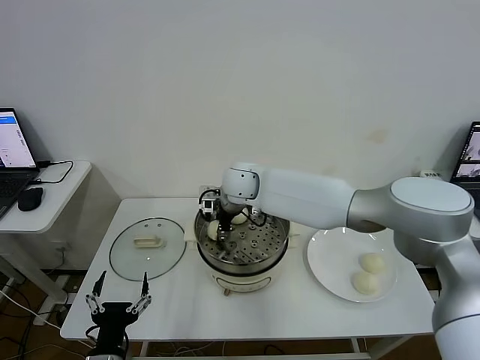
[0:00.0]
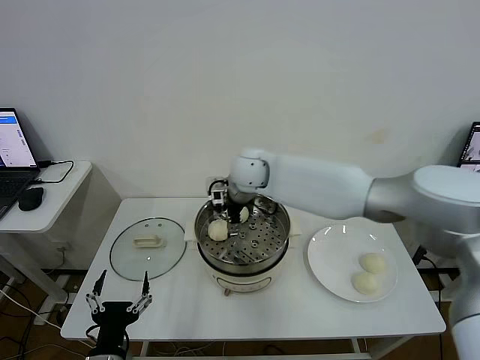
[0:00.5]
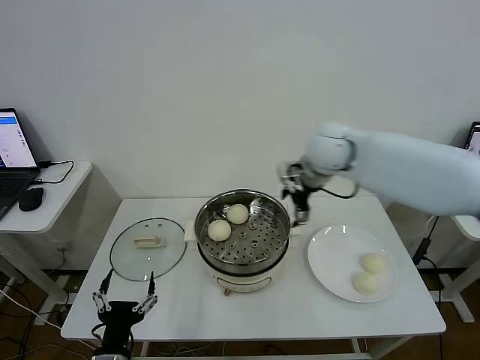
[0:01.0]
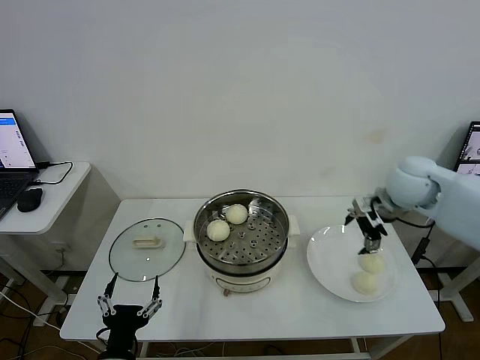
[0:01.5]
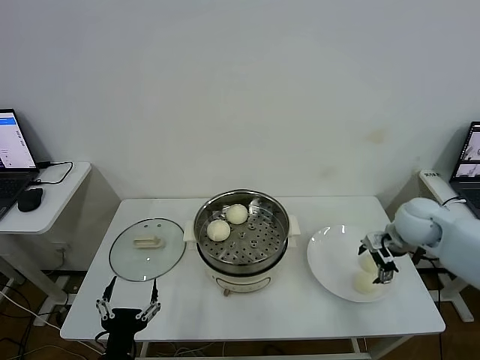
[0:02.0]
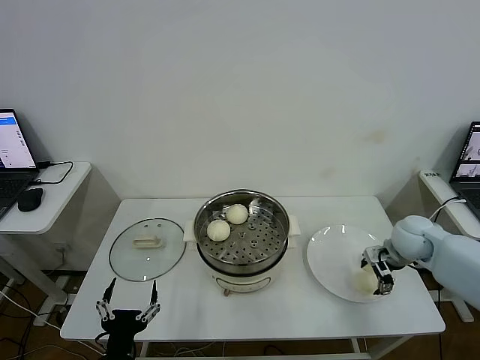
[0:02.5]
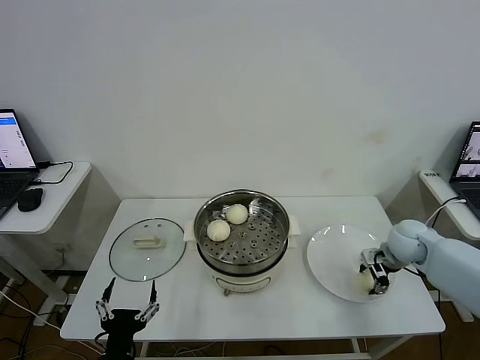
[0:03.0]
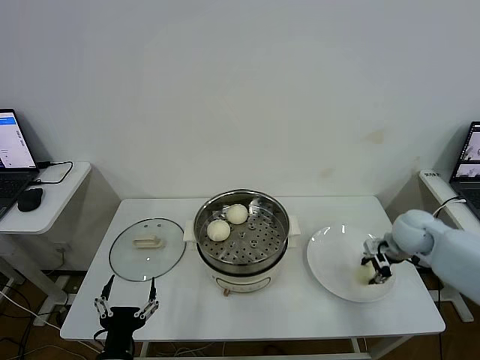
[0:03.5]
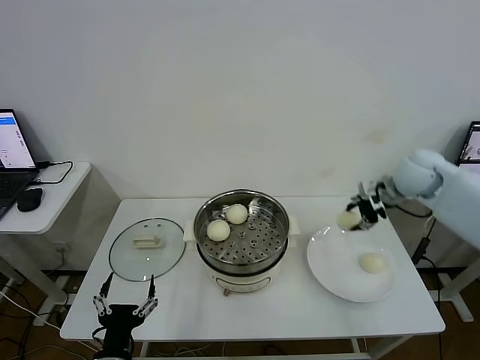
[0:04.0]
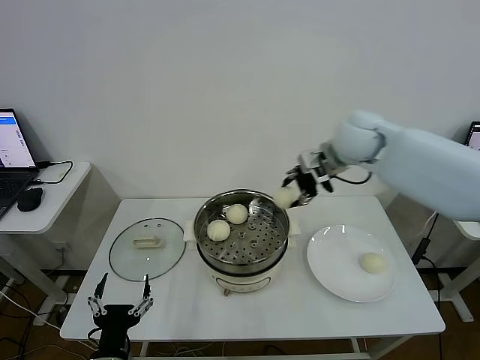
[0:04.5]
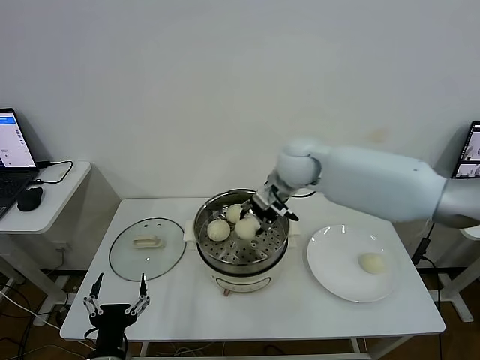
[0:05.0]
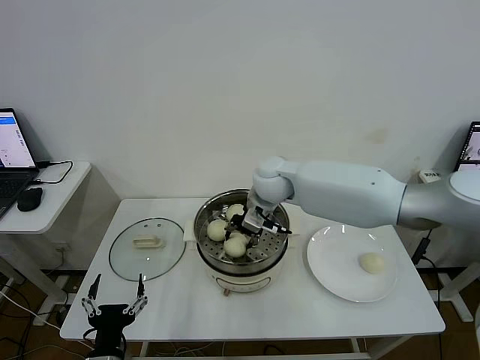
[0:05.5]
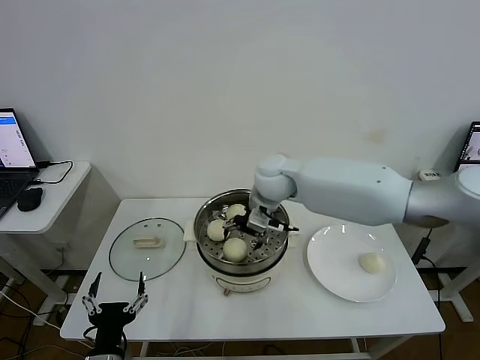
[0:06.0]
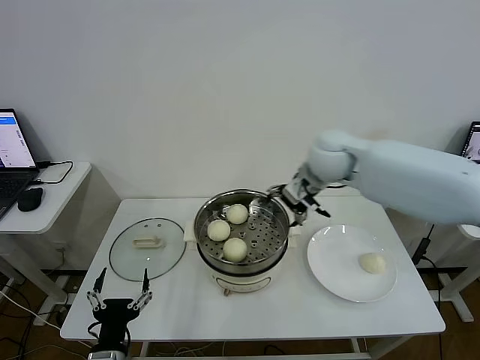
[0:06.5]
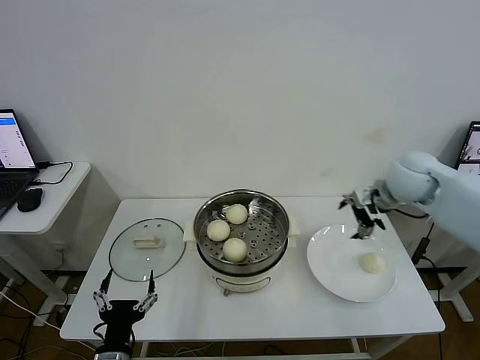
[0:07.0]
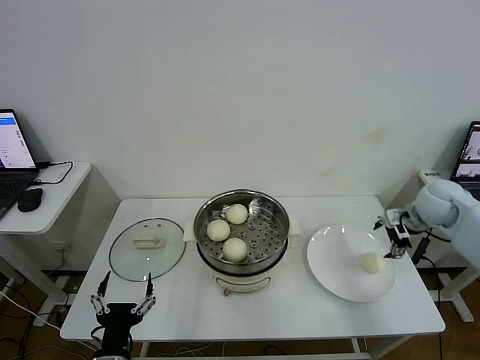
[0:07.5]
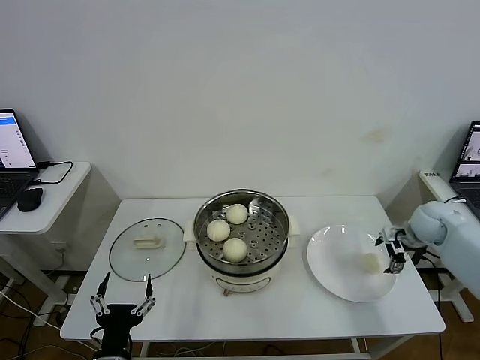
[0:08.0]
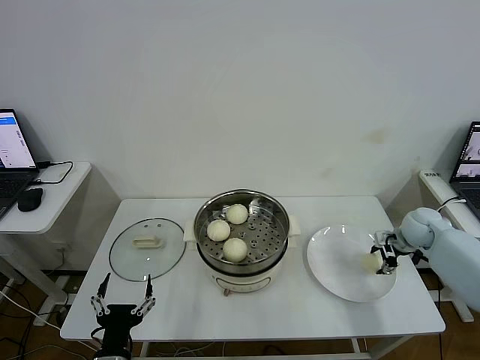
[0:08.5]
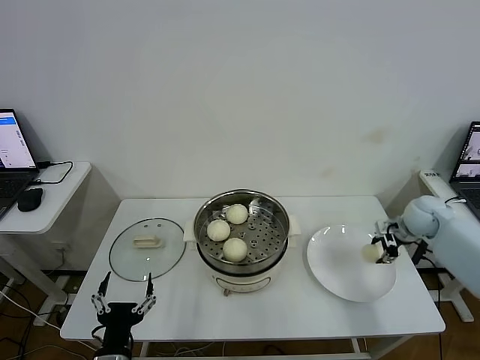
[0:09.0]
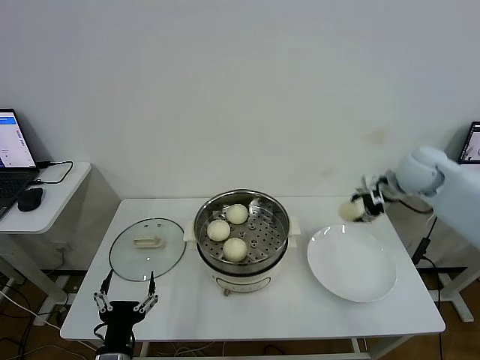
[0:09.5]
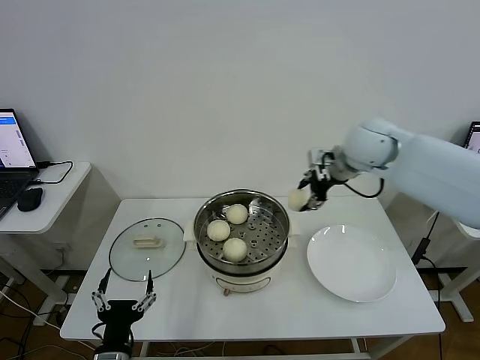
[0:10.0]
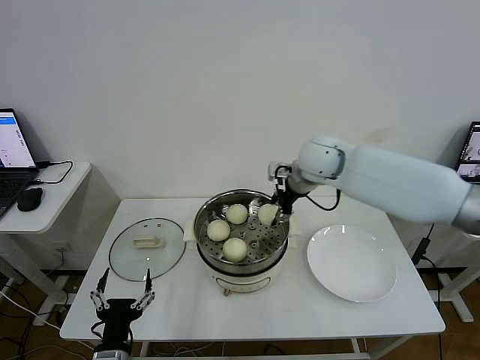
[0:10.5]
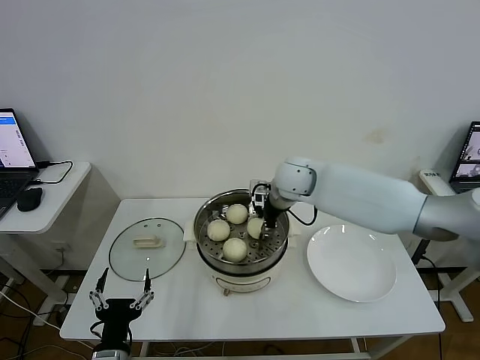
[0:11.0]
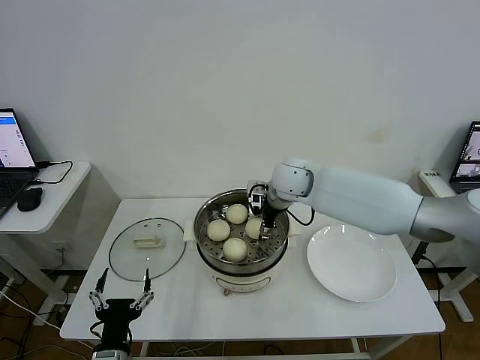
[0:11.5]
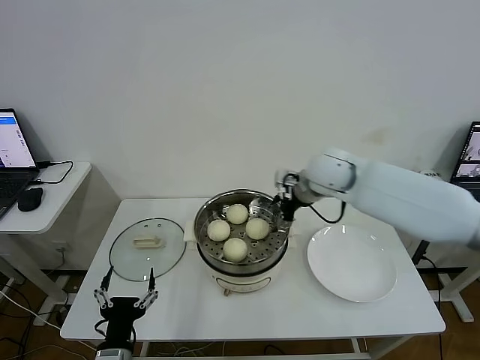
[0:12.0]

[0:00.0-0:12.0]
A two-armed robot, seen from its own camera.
Step, 1.0 to 3.0 s: Grasp the baozi in the plate with right gripper.
Step, 3.5 to 6.0 s: Place the baozi on the steamer with right gripper.
Step, 6.5 to 8.5 s: Grasp the baozi in the plate with right gripper.
Step, 9.0 to 11.5 s: Place the baozi on the steamer with right gripper.
0.0 to 2.0 s: The right gripper goes approximately 40 cm to the right, and opens.
2.0 to 4.0 s: The right gripper heads upward and forward, covering roughly 15 cm, and closes its fingers.
4.0 to 6.0 s: The right gripper moves to the left, approximately 25 cm, and opens.
6.0 to 8.0 s: The right gripper shifts roughly 40 cm to the right.
8.0 to 10.0 s: The right gripper moves to the left and upward, about 30 cm, and closes its fingers.
10.0 to 12.0 s: The right gripper moves downward, approximately 5 cm, and opens its fingers.

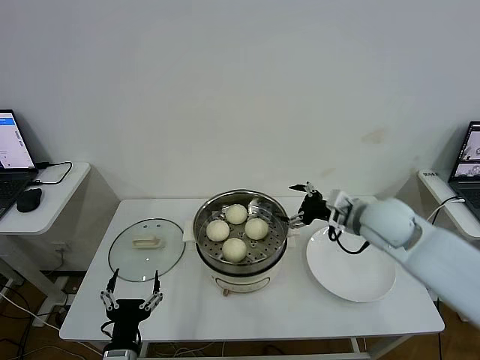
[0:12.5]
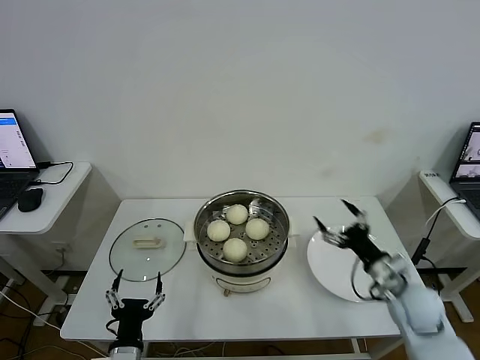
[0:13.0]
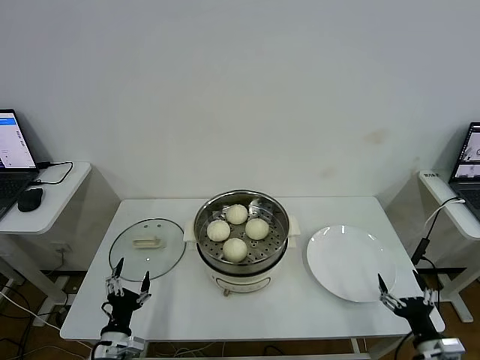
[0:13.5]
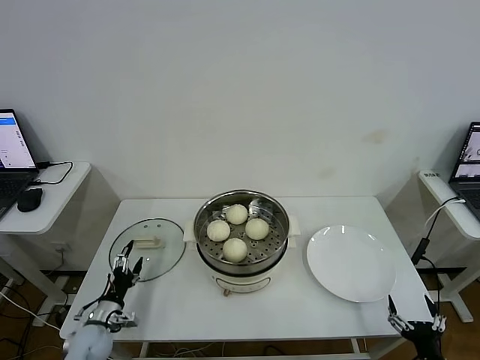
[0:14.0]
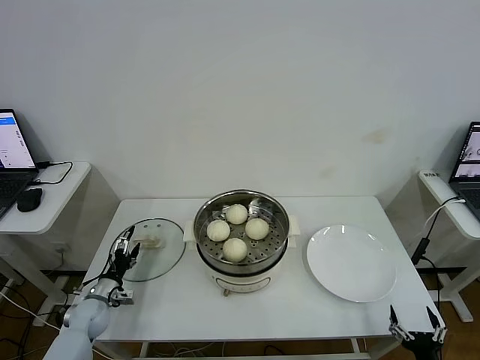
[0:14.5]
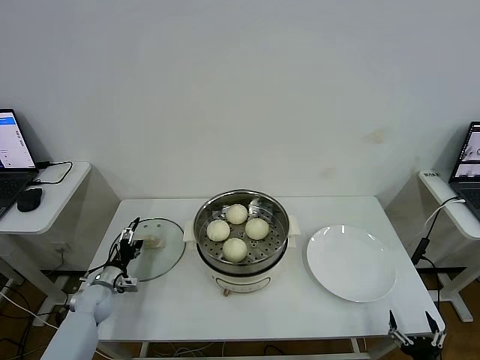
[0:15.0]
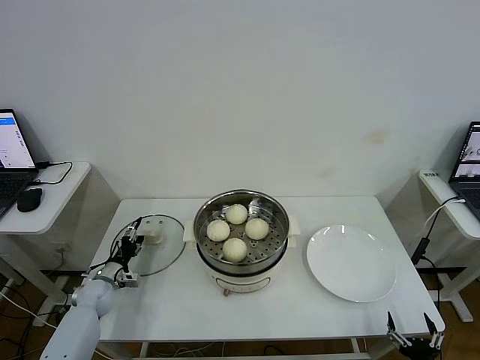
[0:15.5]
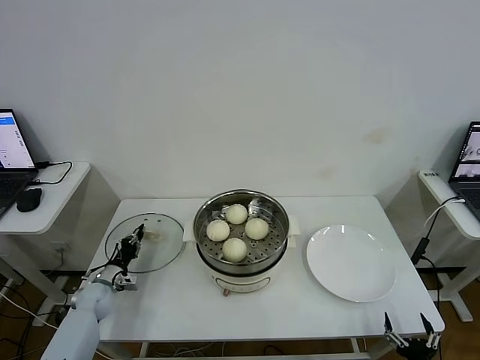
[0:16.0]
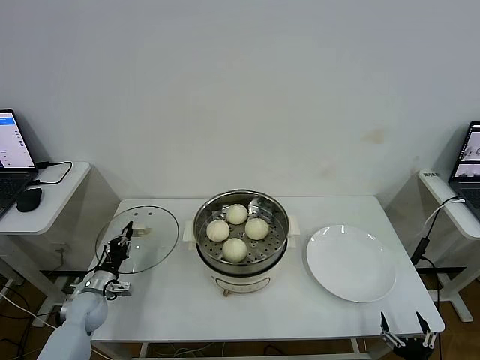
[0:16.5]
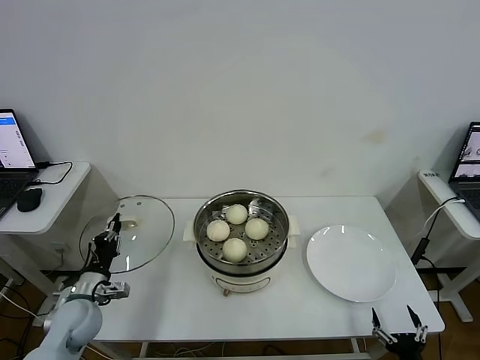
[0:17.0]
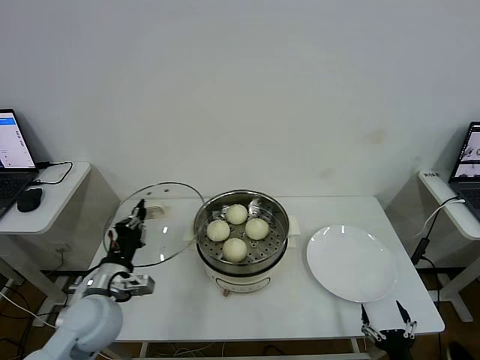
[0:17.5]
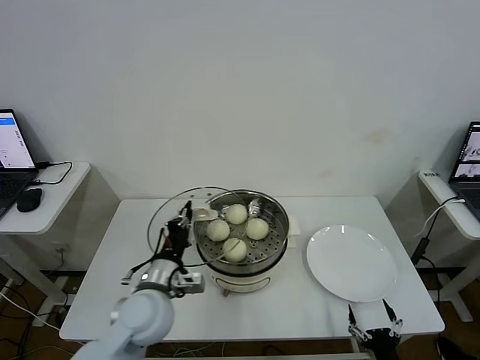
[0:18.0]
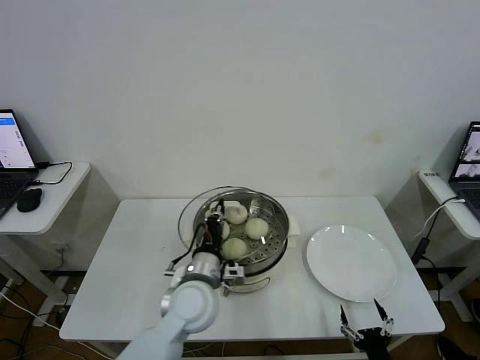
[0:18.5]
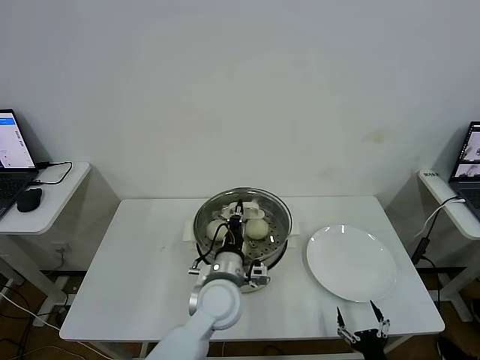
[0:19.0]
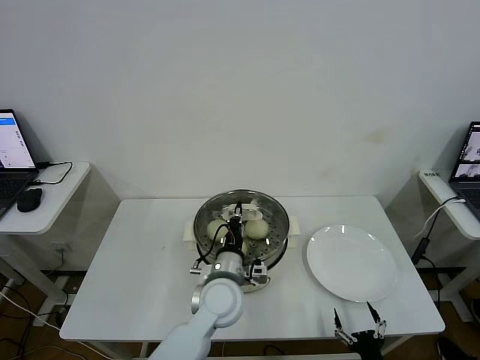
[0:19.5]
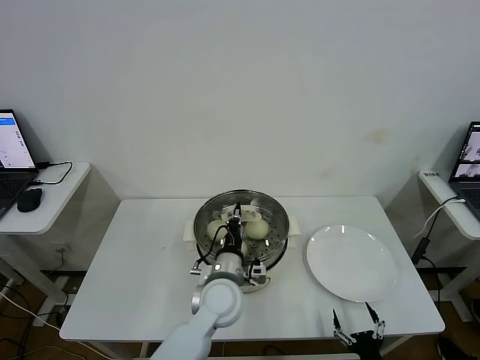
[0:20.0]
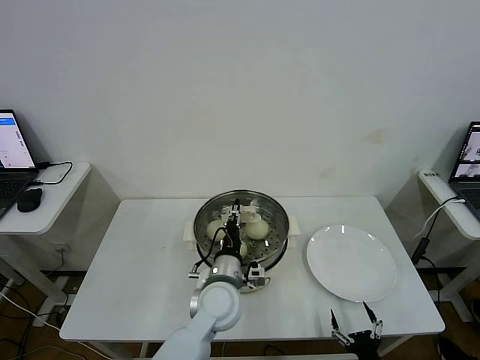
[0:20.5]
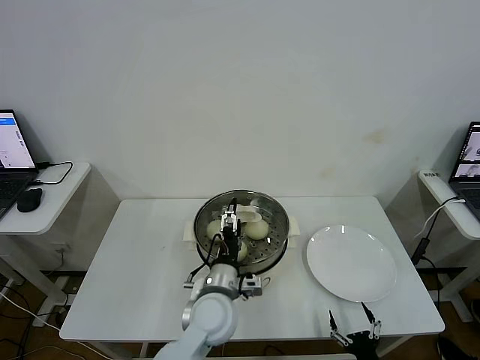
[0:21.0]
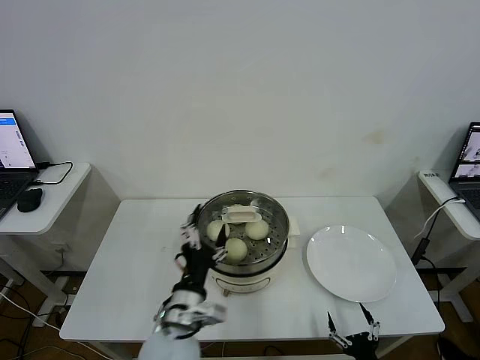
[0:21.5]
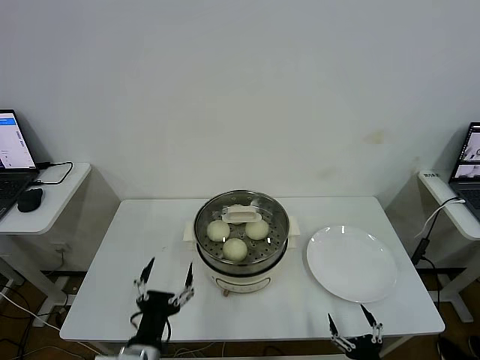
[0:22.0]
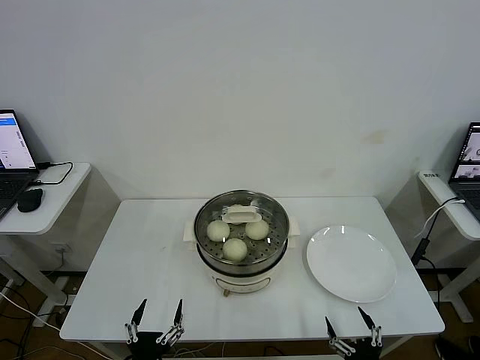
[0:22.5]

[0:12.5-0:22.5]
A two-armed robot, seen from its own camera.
Step, 12.5 to 16.0 s: Grasp the pot lid with left gripper.
Step, 16.5 to 21.0 s: Place the pot lid on the steamer with left gripper.
12.5 to 14.5 s: The right gripper is displaced backward, downward and to the right by about 40 cm. Meanwhile the left gripper travels forward, to the left and downward by some 30 cm.
14.5 to 16.5 s: The left gripper closes up.
16.5 to 18.5 s: The left gripper is displaced to the right and upward by approximately 35 cm, while the right gripper heads to the left, covering roughly 5 cm.
18.5 to 20.5 s: The left gripper travels to the right by about 5 cm, and opens.
20.5 to 22.5 s: The left gripper goes approximately 30 cm backward and to the left, and opens up.

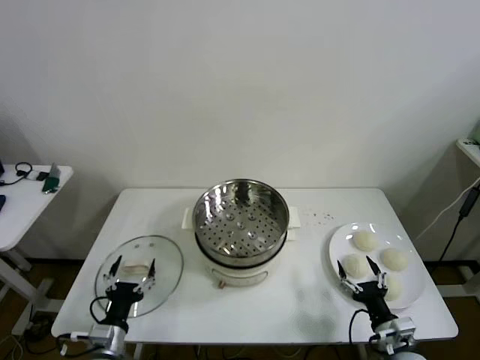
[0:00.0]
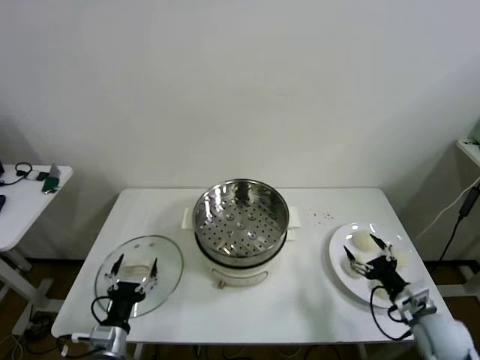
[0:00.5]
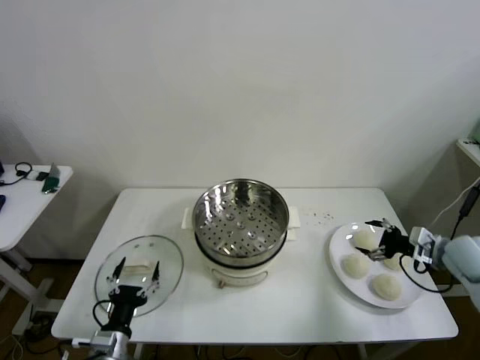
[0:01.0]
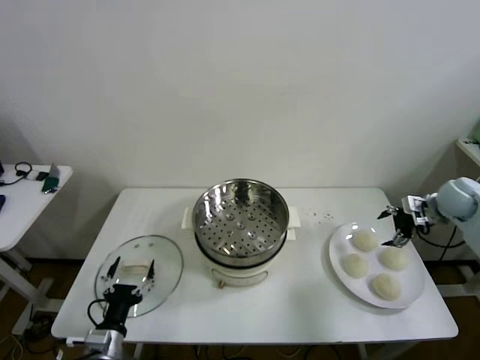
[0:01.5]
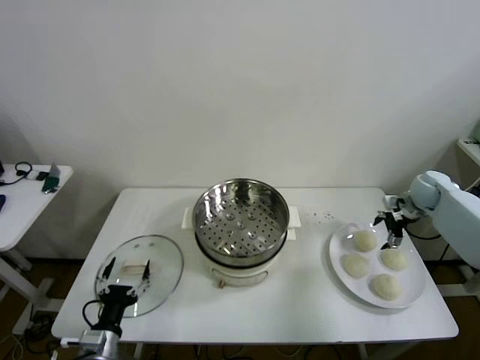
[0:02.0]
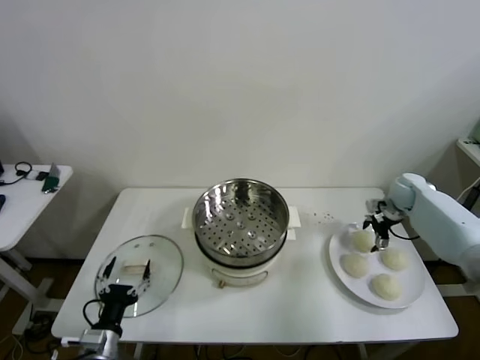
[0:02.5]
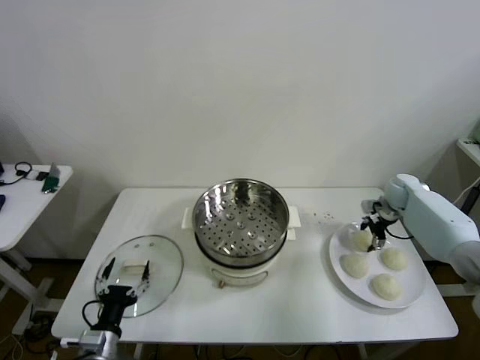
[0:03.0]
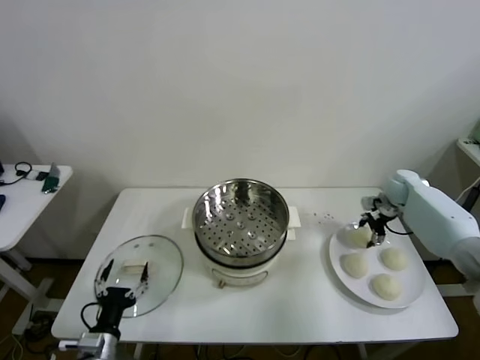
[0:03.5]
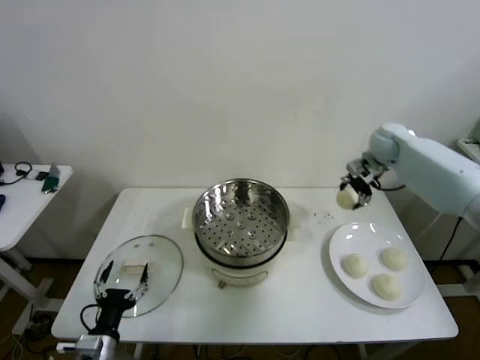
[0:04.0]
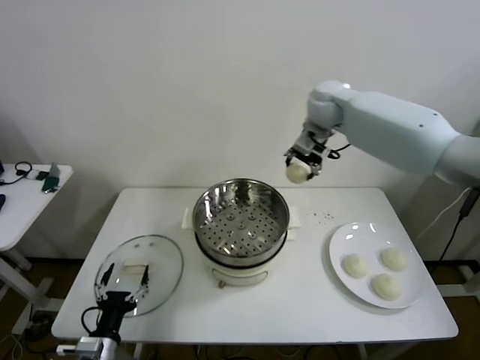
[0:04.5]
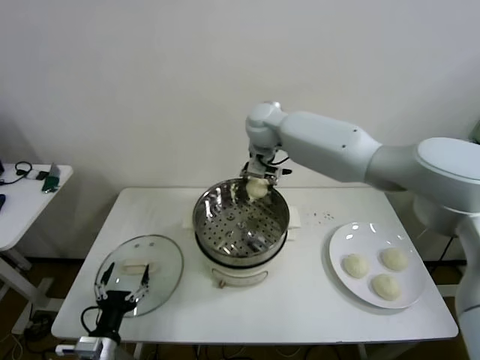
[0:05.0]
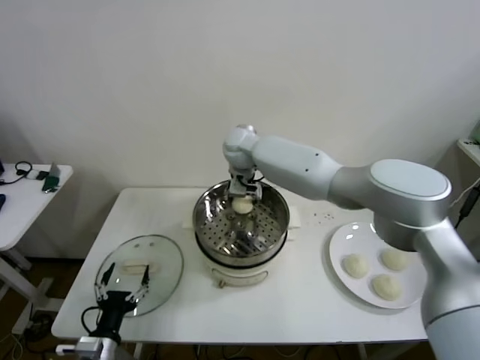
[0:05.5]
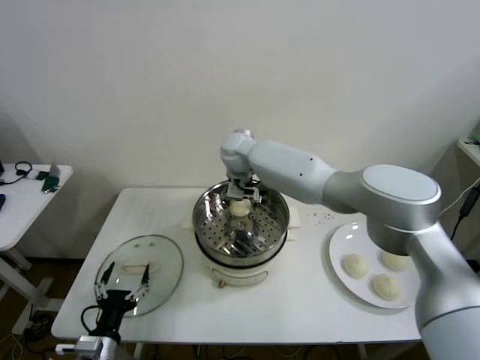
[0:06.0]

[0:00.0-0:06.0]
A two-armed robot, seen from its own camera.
Step, 0.0 to 3.0 s: Grasp the baozi in the plate with right gripper.
Step, 3.5 to 5.5 s: Place the baozi on the steamer with right gripper.
2.0 to 4.0 s: The right gripper heads upward, to the left and forward, covering about 25 cm.
4.0 to 6.0 s: The right gripper shifts approximately 35 cm to the left.
